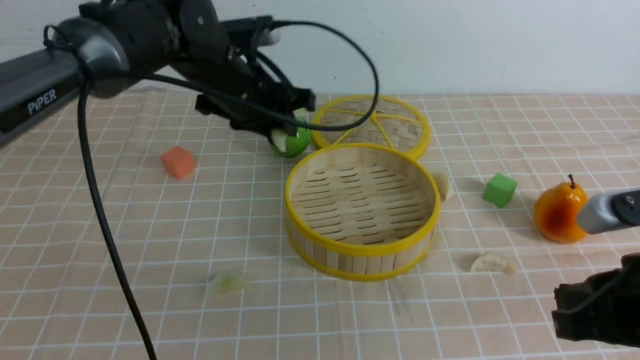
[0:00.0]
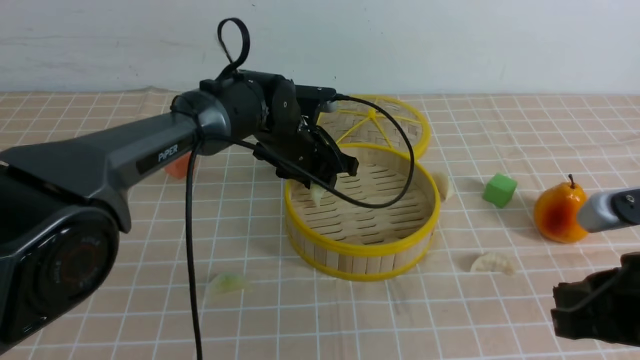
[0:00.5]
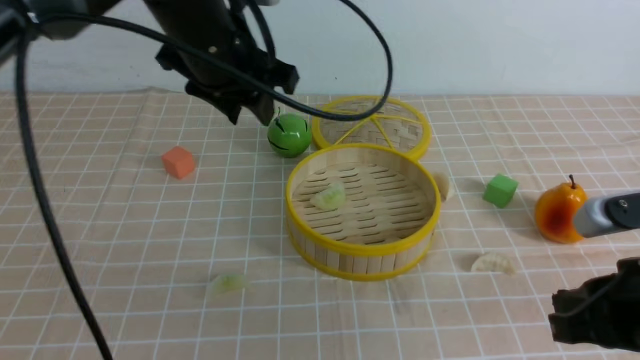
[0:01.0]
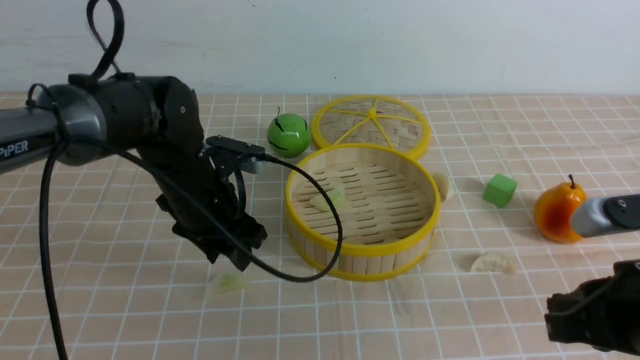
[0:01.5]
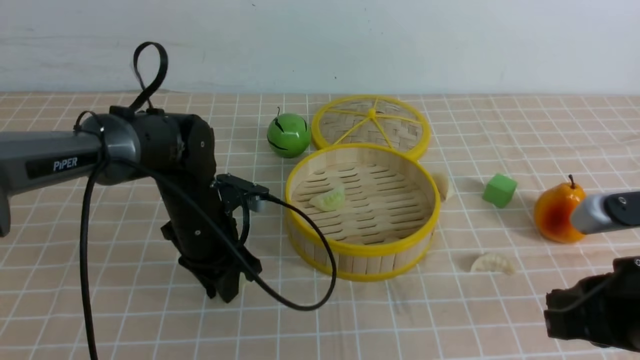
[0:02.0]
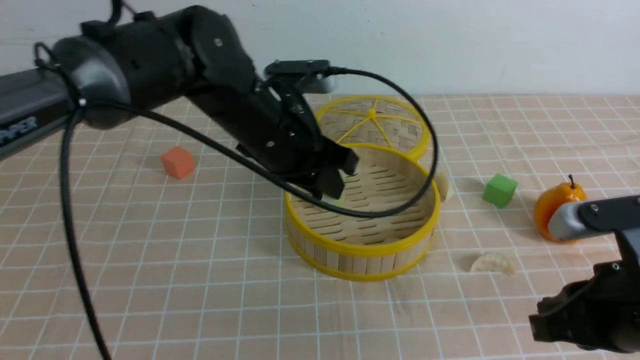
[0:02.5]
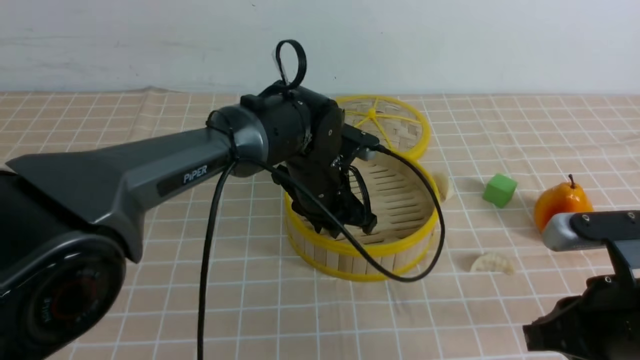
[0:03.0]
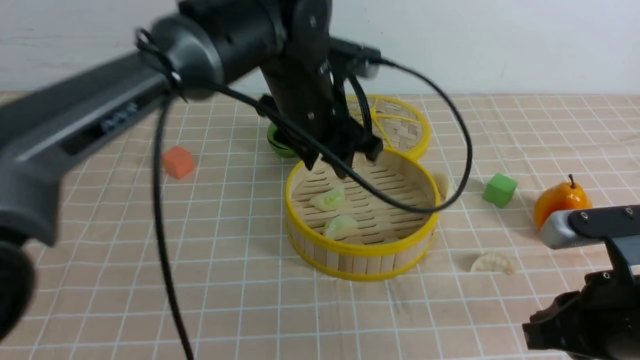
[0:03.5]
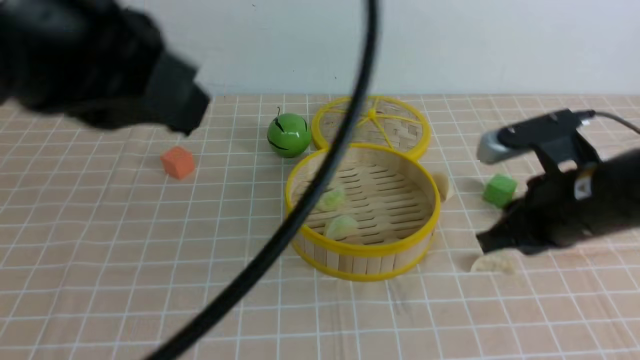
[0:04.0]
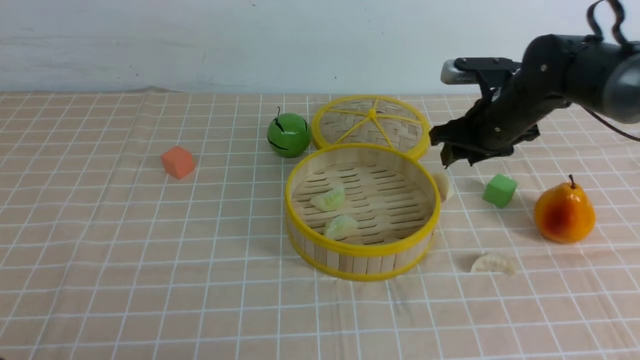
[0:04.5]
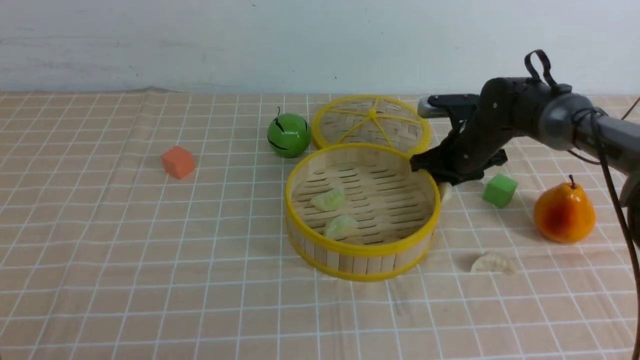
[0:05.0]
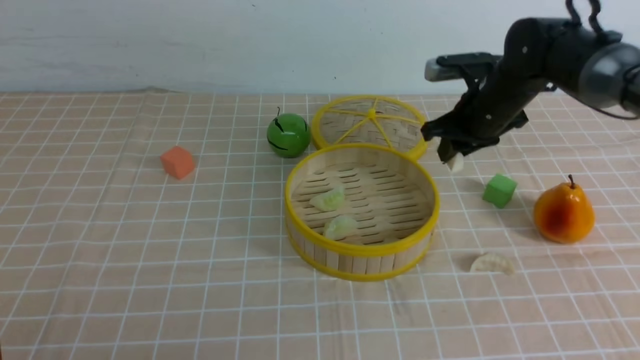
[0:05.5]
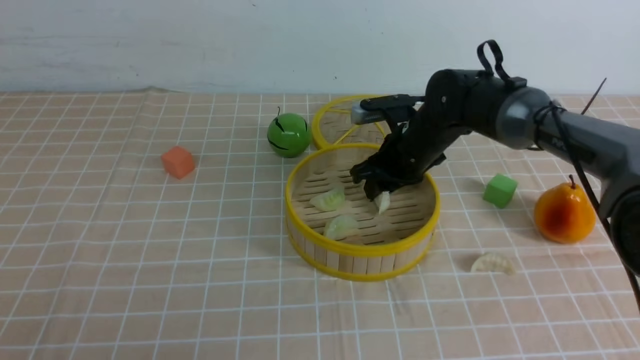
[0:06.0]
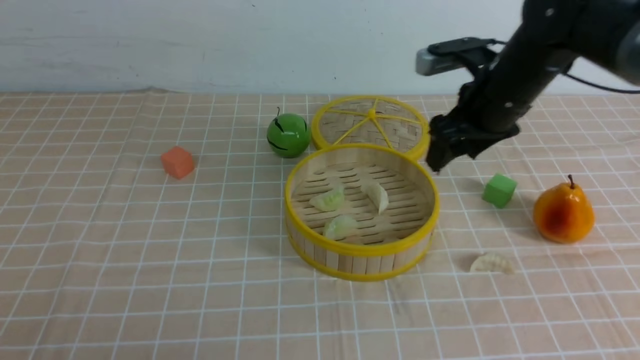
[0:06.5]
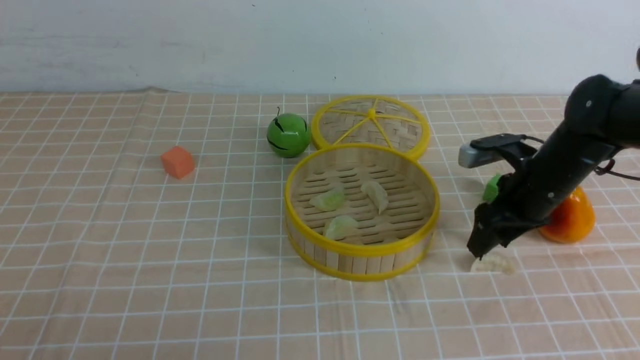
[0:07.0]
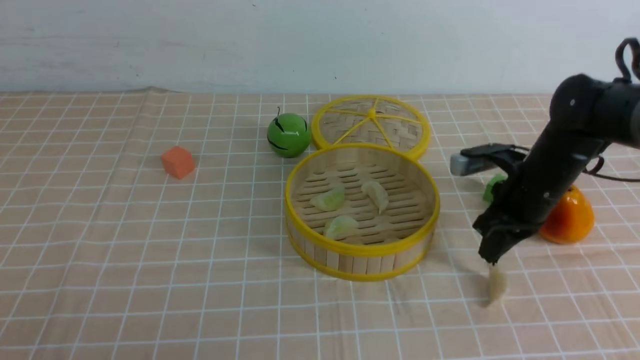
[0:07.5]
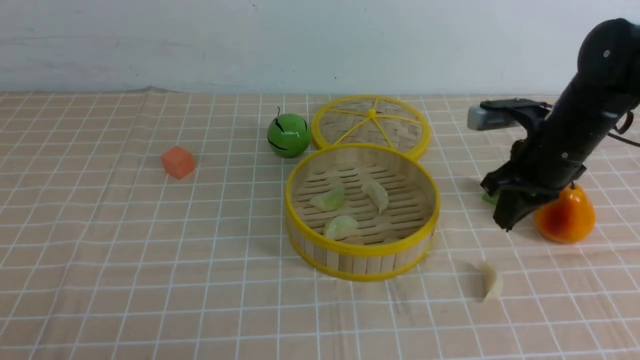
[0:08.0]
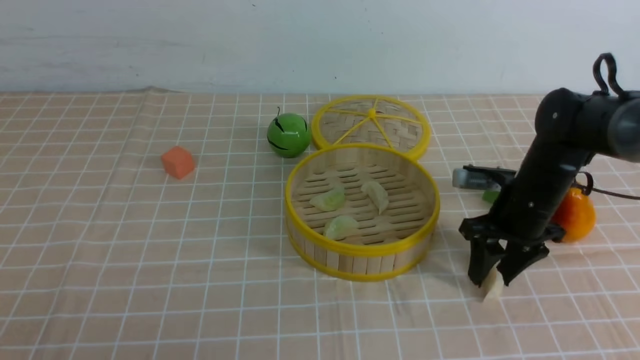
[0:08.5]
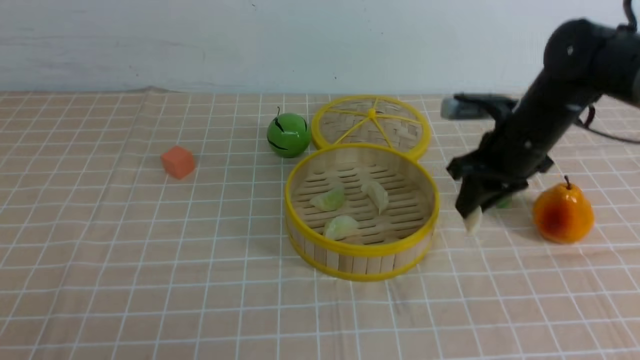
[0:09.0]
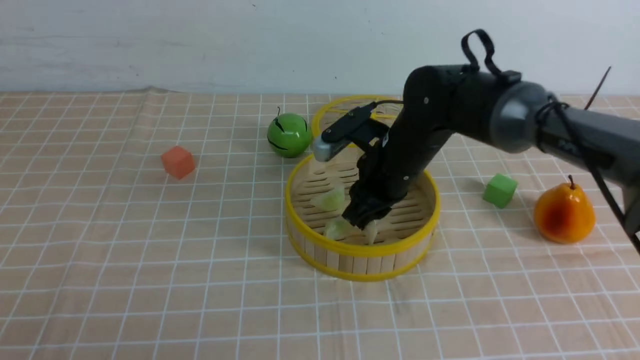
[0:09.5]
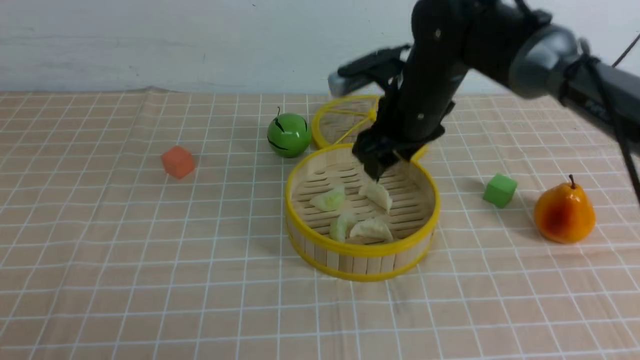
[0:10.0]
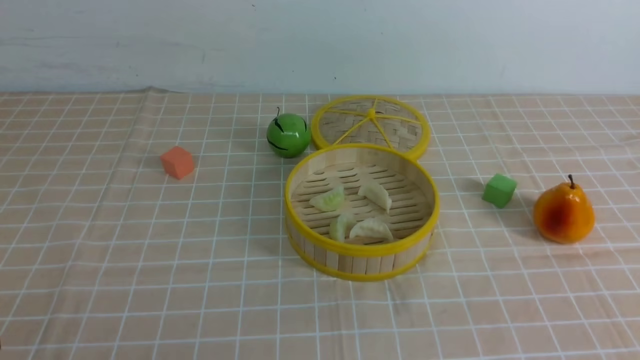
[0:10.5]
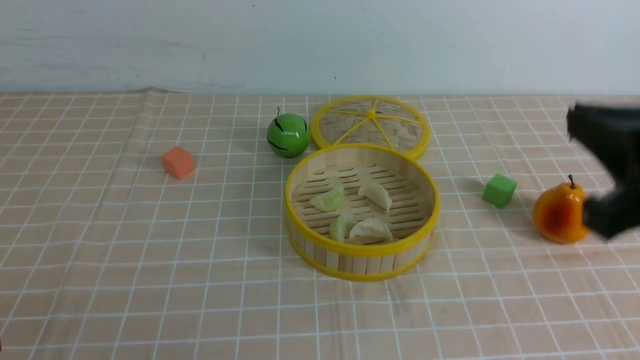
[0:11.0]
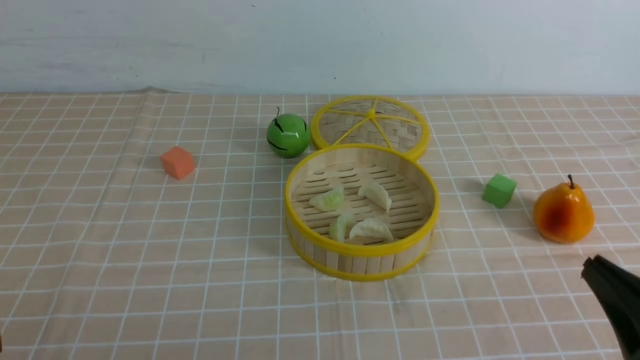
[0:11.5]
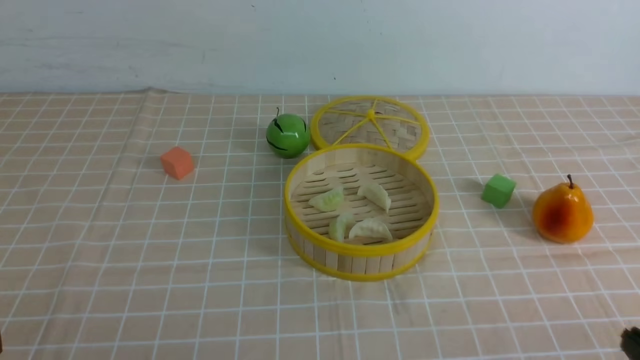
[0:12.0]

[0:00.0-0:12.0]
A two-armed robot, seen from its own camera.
Task of the whole recording: put the dumplings into the steamer on the table with the brown tablecloth.
Step, 0:01.0 to 0:01.5: use the left arm to grab a dumpling.
Step, 0:02.0 to 0:03.0: use the left arm to put the dumpling into the steamer.
Step, 0:03.5 to 0:05.0: use the right arm to grab a dumpling.
Step, 0:05.5 to 0:06.0: use the right arm to put the dumpling into the steamer.
Step, 0:06.5 to 0:08.5: use the right arm to grab a dumpling.
Step, 0:09.0 to 0:10.0: use the right arm to put the dumpling into the steamer.
0:00.0 to 0:02.0: The left gripper moves downward and backward, approximately 10 cm.
0:02.0 to 0:04.0: The left gripper swings up and down, some 25 cm each way, with 2 reversals, and closes up; the right gripper is displaced forward by approximately 10 cm.
0:04.0 to 0:06.0: The left gripper heads downward, to the left and backward, covering some 25 cm. Meanwhile the right gripper goes roughly 20 cm forward, to the left and downward.
0:06.0 to 0:08.0: The right gripper heads to the right and backward, covering approximately 15 cm, and closes.
0:08.0 to 0:10.0: The right gripper heads to the left and upward, covering approximately 15 cm, and opens its fingers.
0:10.0 to 0:12.0: The right gripper is displaced backward and to the right by some 40 cm, and closes its fingers.

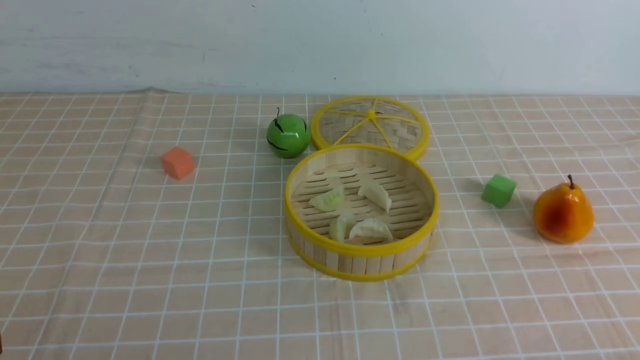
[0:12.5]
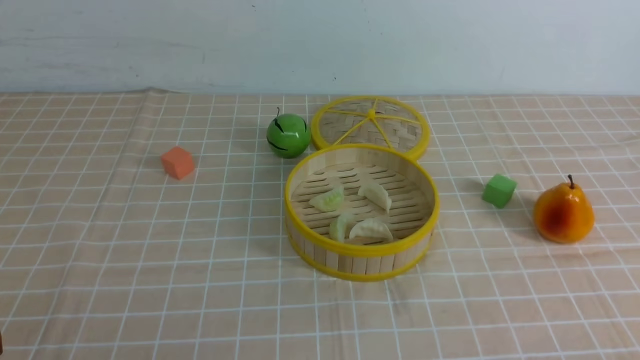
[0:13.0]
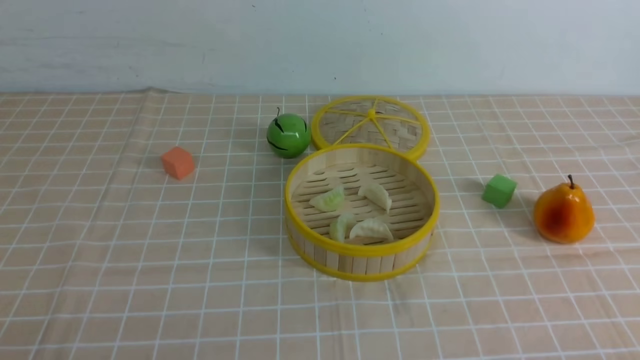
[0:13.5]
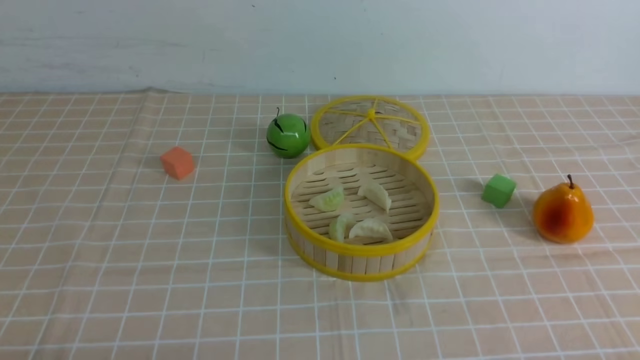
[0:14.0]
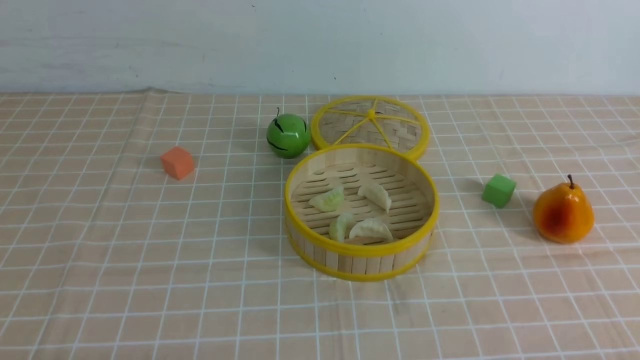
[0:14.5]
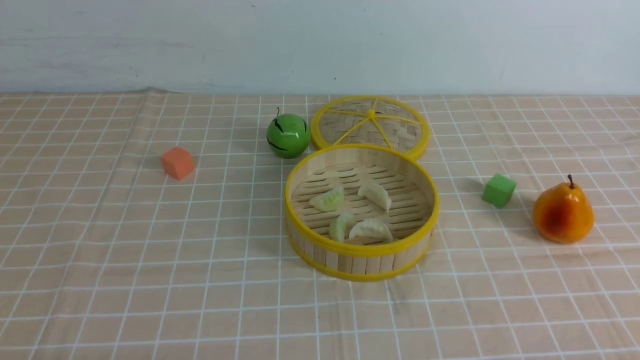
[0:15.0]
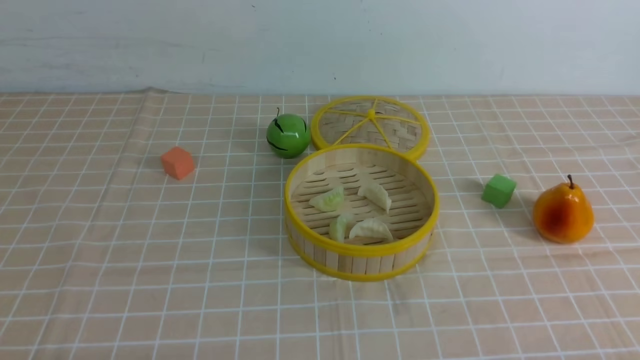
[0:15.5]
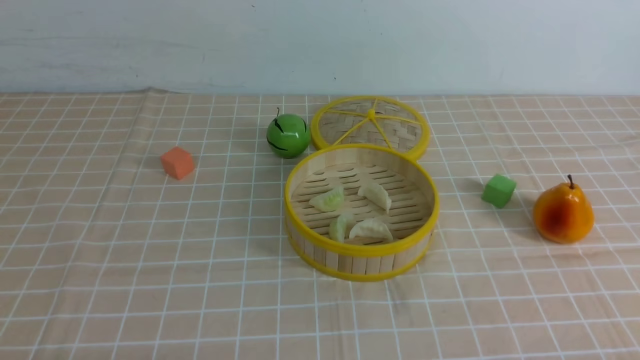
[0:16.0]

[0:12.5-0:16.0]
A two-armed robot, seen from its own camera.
Task of the whole recording: put the dumplings into the steamer on the table with the brown tablecloth.
0:14.5 to 0:16.0: The two grippers keep their place.
